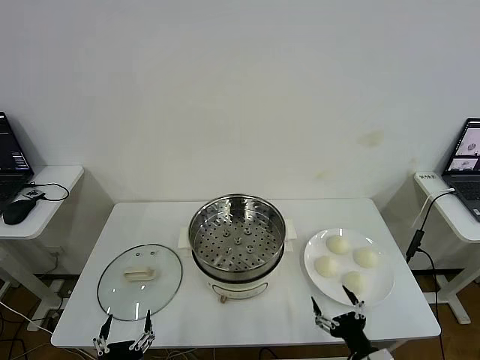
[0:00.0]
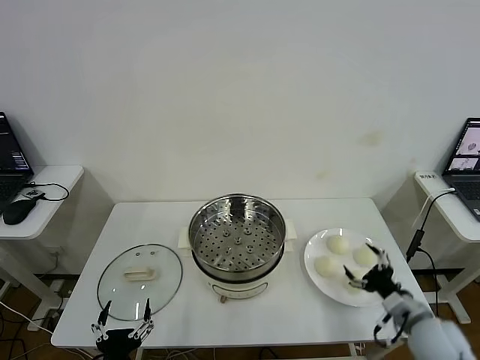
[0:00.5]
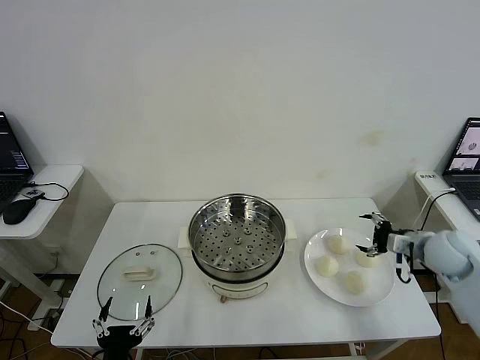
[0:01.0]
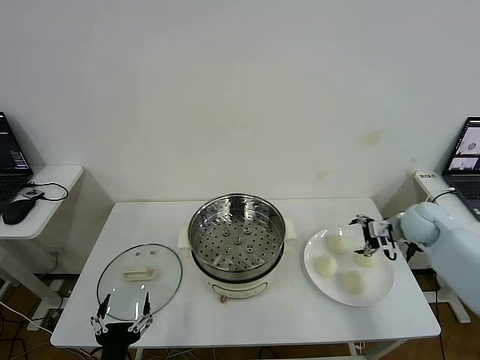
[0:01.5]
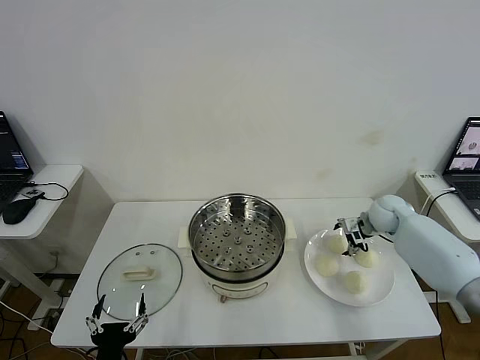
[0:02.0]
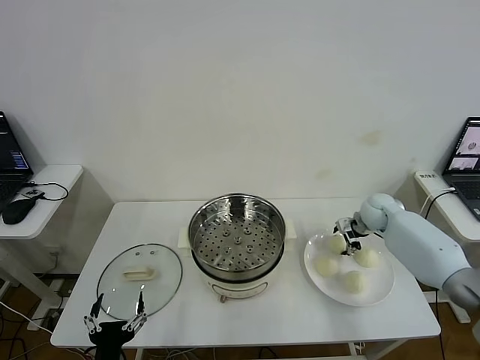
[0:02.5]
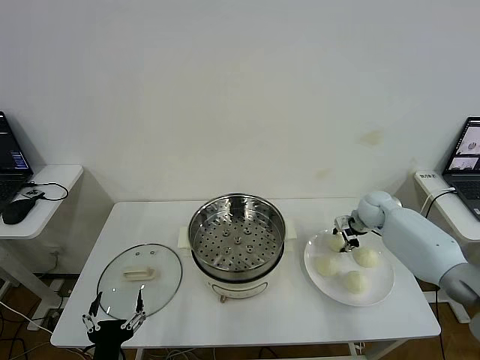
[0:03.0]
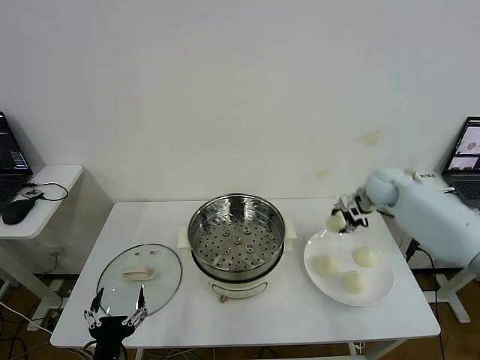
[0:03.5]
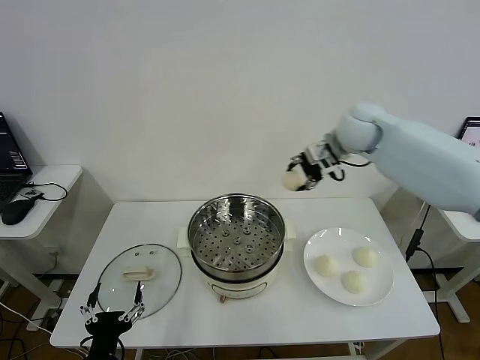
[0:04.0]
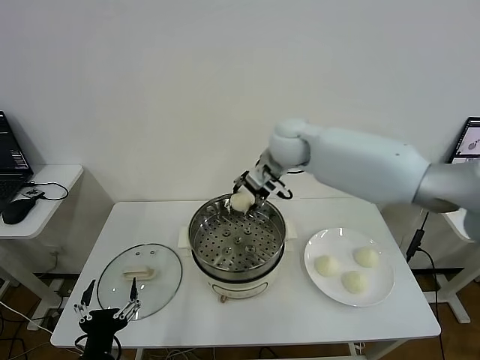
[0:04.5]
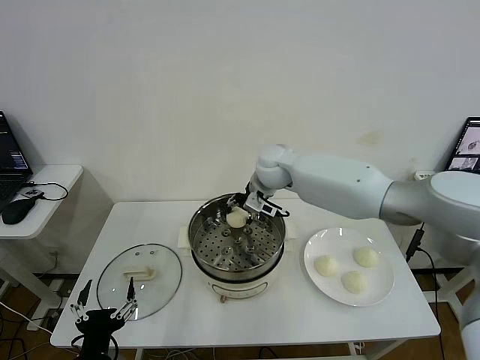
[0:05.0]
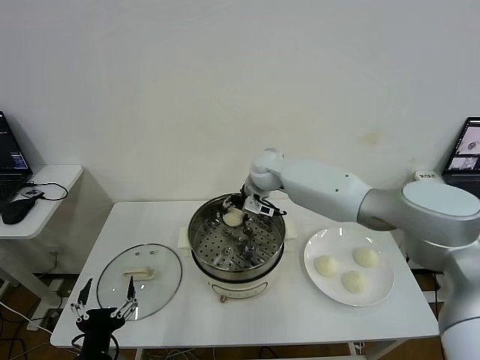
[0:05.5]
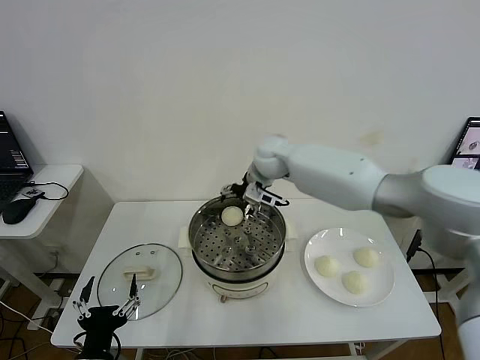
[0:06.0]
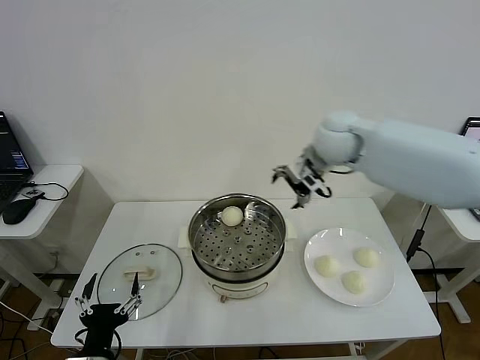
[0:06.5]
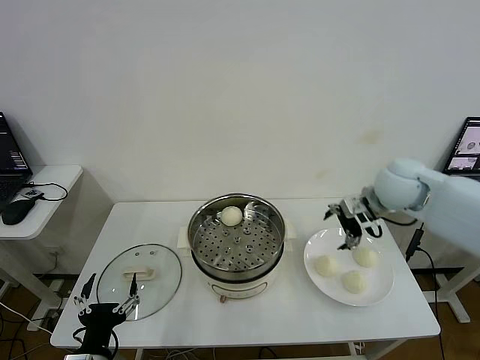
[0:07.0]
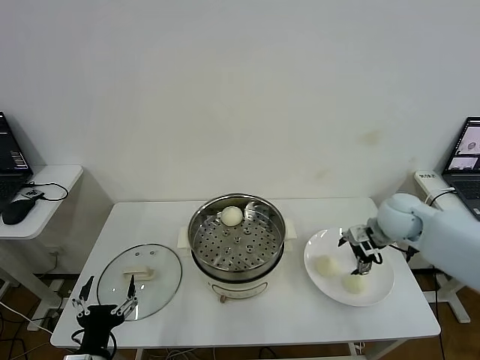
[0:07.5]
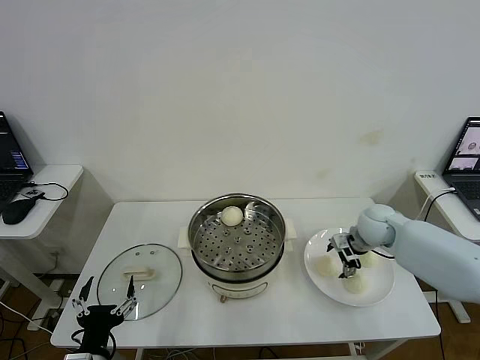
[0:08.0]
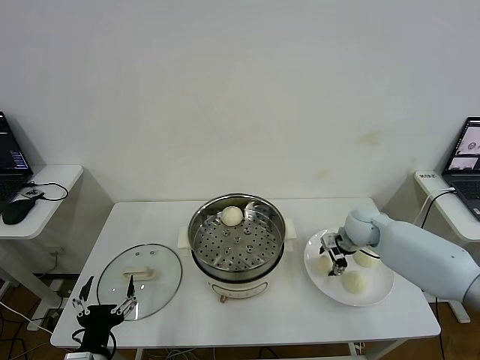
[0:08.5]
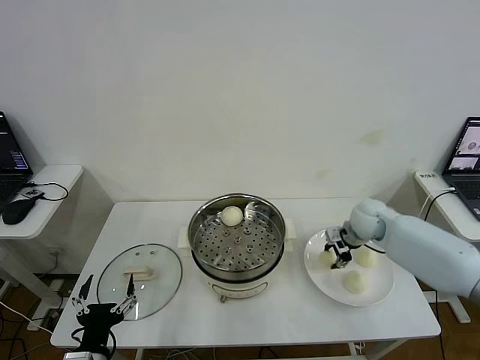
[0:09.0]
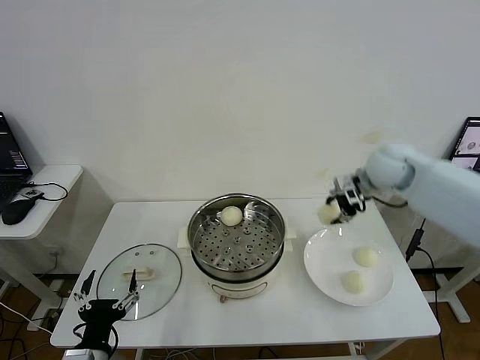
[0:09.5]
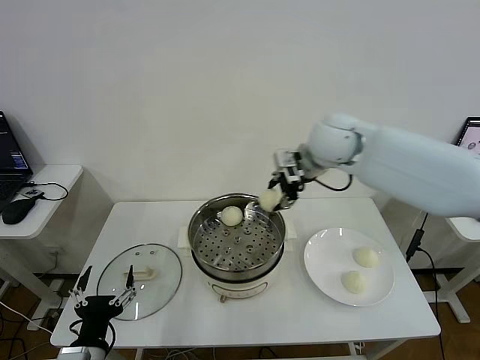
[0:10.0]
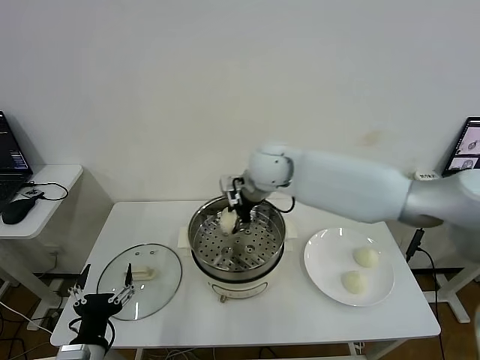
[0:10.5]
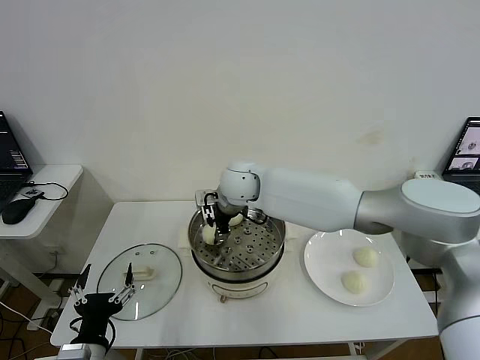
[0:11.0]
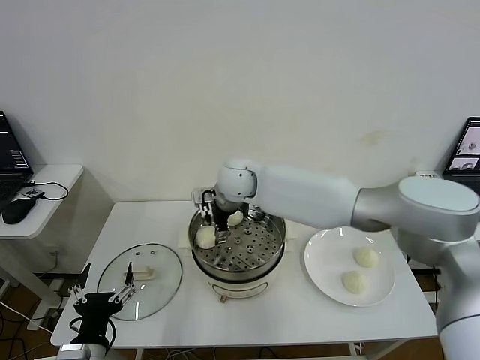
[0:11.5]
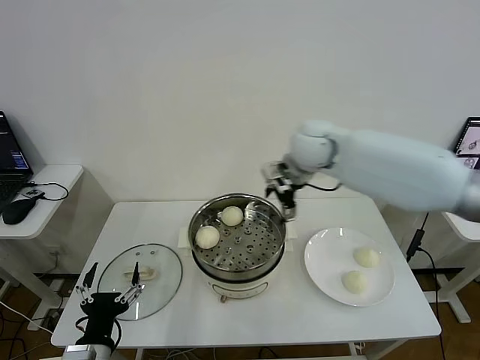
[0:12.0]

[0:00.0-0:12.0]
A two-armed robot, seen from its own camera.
Step, 0:00.0 to 0:02.5: Grasp the baozi in the plate with right gripper.
Step, 0:03.0 to 0:05.5: Place the baozi on the steamer with right gripper.
Step, 0:06.5 to 0:08.5: Grasp the baozi in the plate with right gripper.
Step, 0:09.0 to 0:11.0: Place the baozi on the steamer with right gripper.
0:02.0 to 0:04.0: The right gripper goes about 30 cm upward and to the left, and closes up.
0:04.0 to 0:06.0: The right gripper travels to the left and downward by some 10 cm, and opens its fingers.
0:06.0 to 0:08.0: The right gripper moves to the right and downward, roughly 30 cm.
0:08.0 to 0:10.0: The right gripper moves upward and to the left, about 30 cm, and closes its fingers.
0:10.0 to 0:12.0: The right gripper reaches roughly 15 cm to the left, then returns, and opens up.

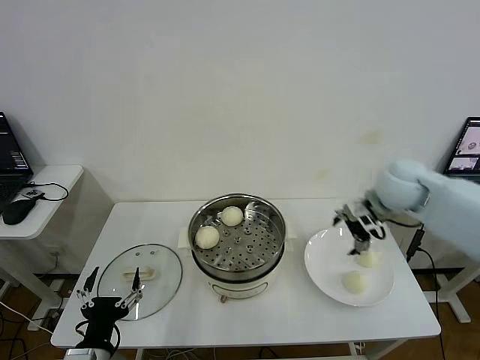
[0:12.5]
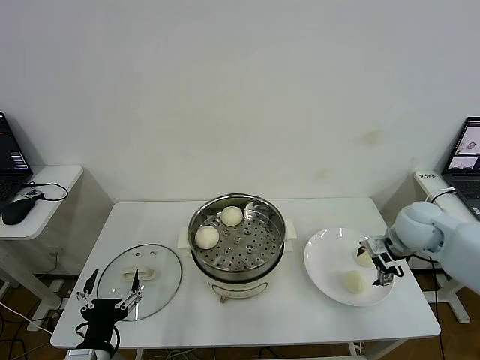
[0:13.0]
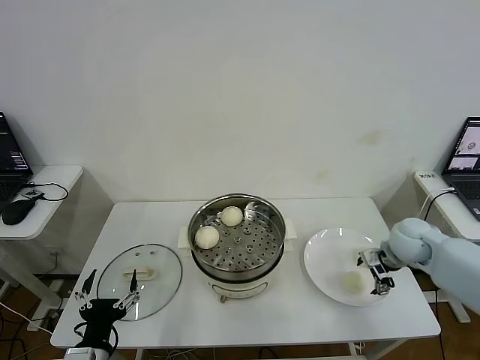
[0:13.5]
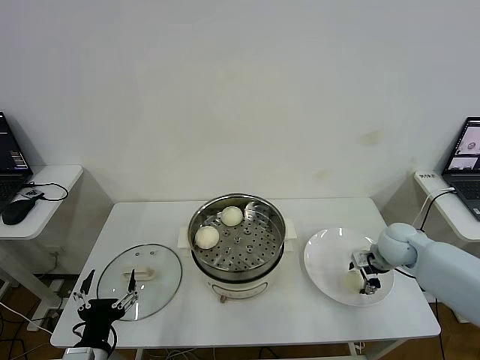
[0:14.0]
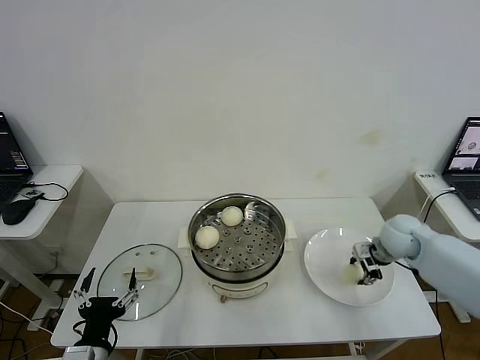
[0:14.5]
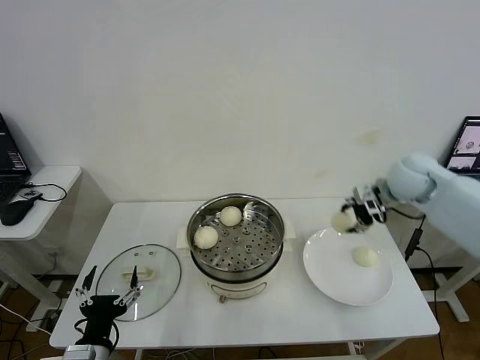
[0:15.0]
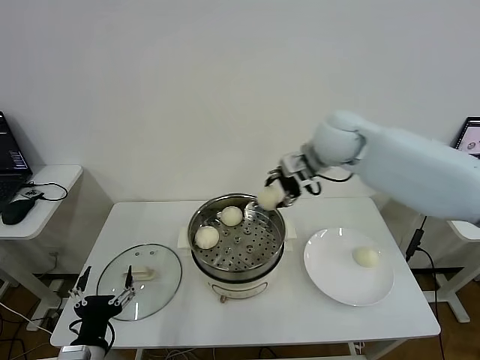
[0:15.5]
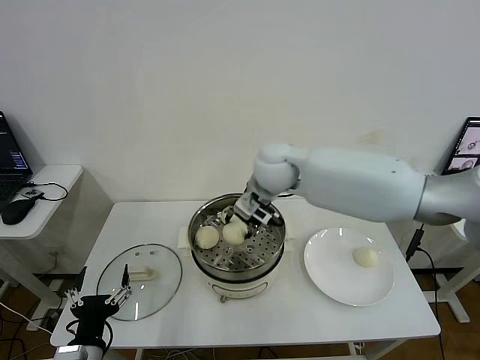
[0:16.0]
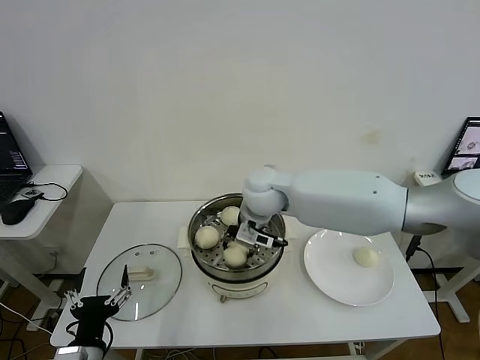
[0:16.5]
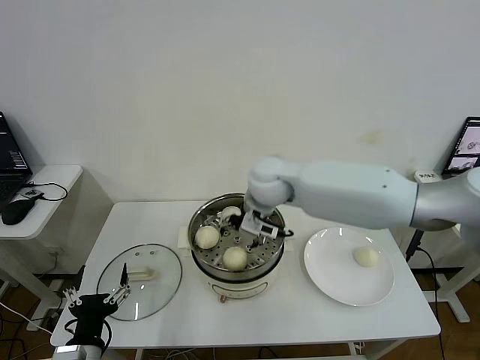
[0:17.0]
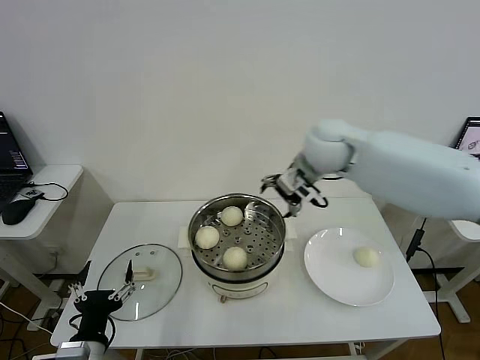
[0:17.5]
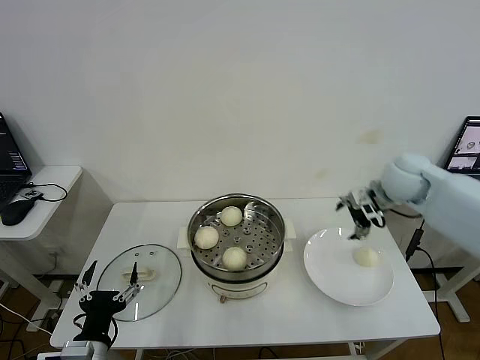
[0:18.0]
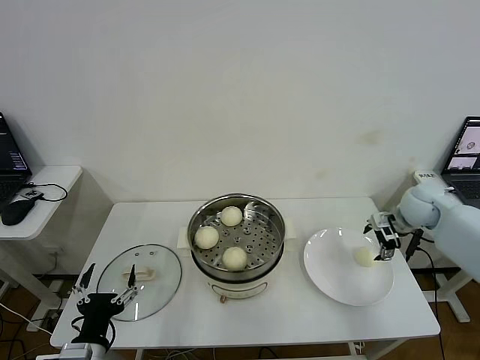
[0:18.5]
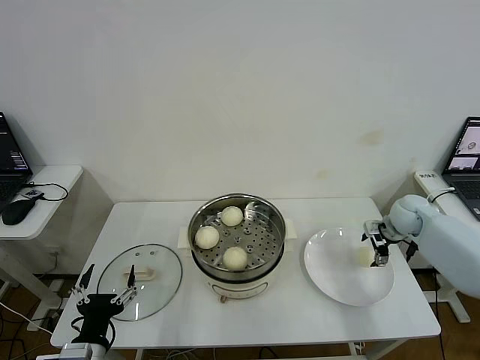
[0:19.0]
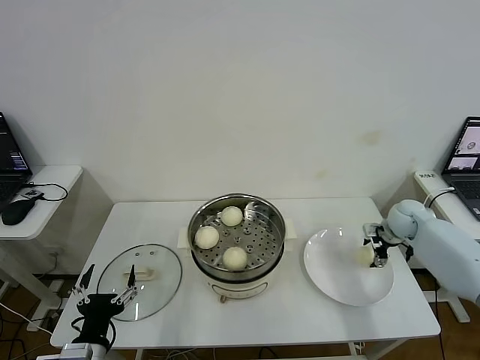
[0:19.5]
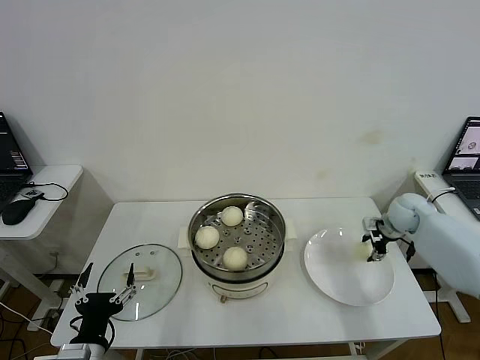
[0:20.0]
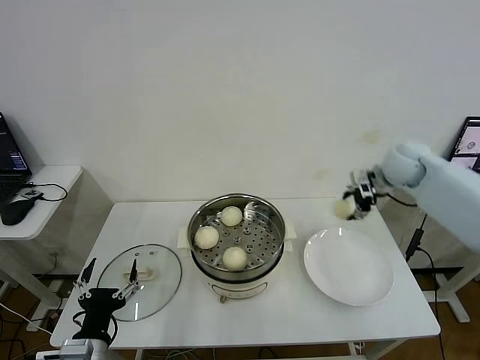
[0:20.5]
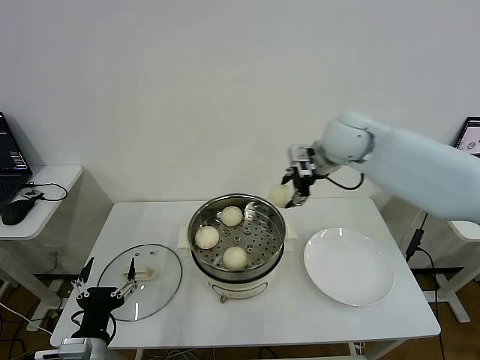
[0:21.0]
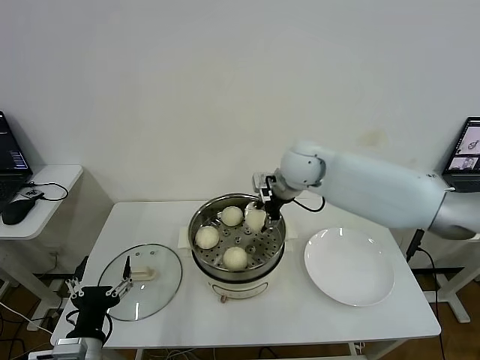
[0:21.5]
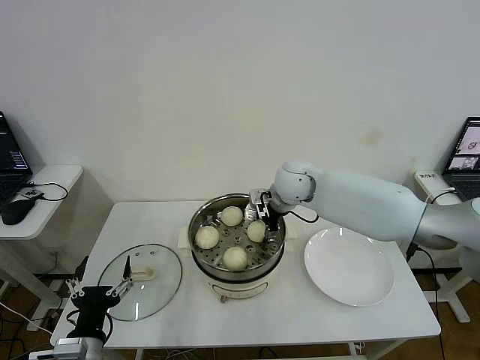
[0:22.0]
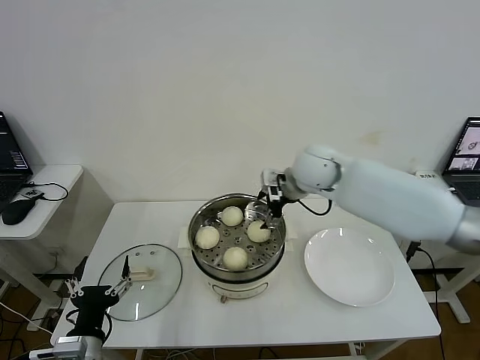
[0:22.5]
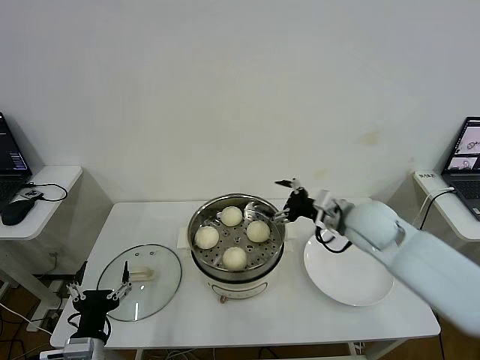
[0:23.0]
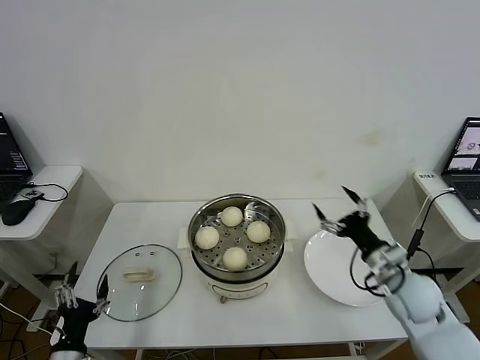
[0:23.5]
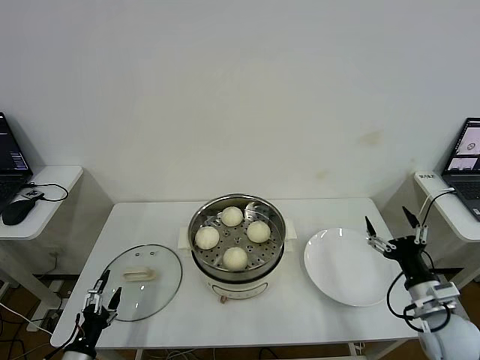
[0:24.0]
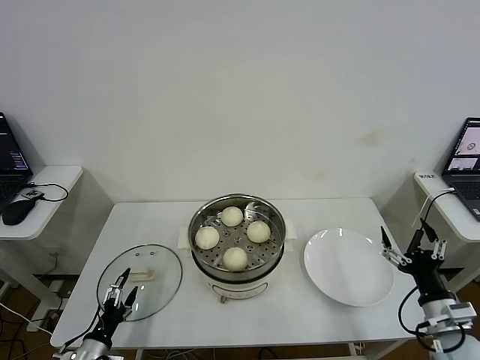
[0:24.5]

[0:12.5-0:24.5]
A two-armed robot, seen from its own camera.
Step, 0:12.5 to 0:14.0: Grasp the baozi in the plate with right gripper.
Step, 0:14.5 to 0:16.5: Place the baozi on the steamer with right gripper.
Step, 0:17.0 to 0:19.5: Grasp the baozi in the plate with right gripper.
Step, 0:20.0 to 0:22.0: Place the baozi on the steamer with right gripper.
0:12.5 to 0:14.5: The right gripper moves downward, approximately 10 cm, and closes up.
0:14.5 to 0:16.5: The right gripper goes about 35 cm to the left.
0:16.5 to 0:18.5: The right gripper is displaced to the right by some 40 cm, and opens its fingers.
0:18.5 to 0:20.5: The right gripper moves upward and to the left, about 10 cm, and closes its fingers.
0:20.5 to 0:22.5: The right gripper shifts about 20 cm to the left, and opens its fingers.
0:22.5 to 0:24.5: The left gripper moves downward and to the left, about 15 cm, while the right gripper moves backward, to the right and downward, about 40 cm.

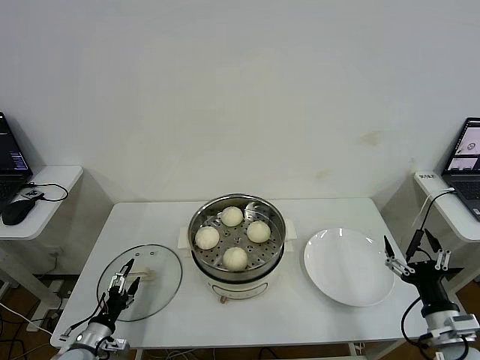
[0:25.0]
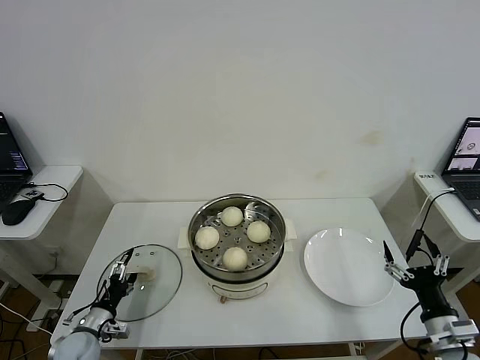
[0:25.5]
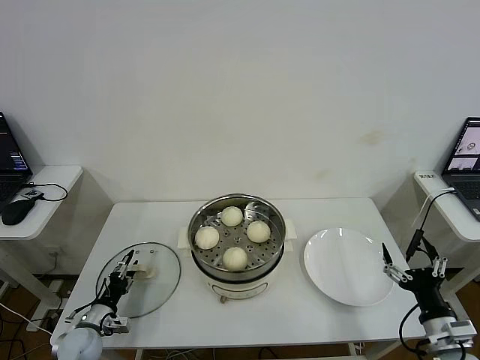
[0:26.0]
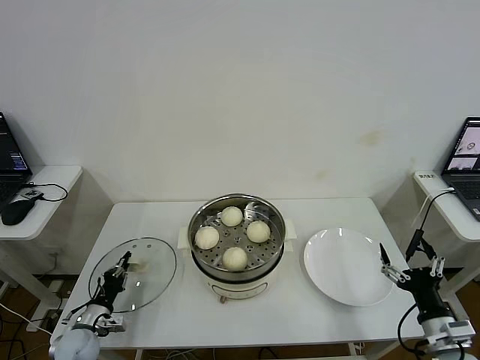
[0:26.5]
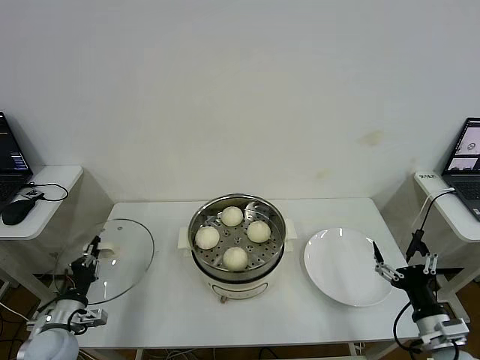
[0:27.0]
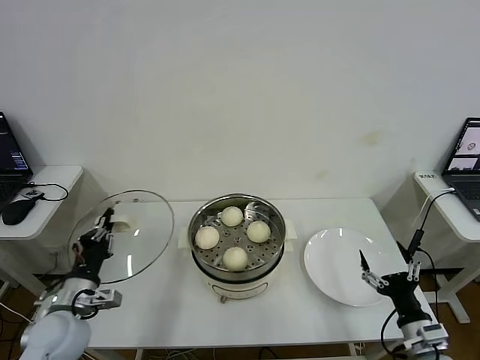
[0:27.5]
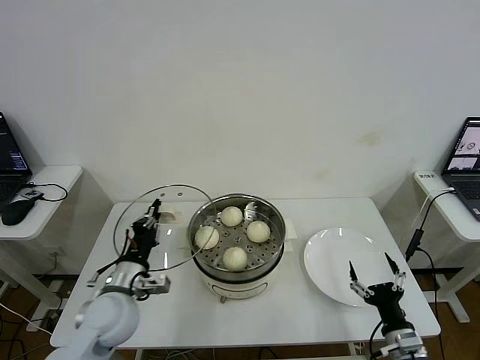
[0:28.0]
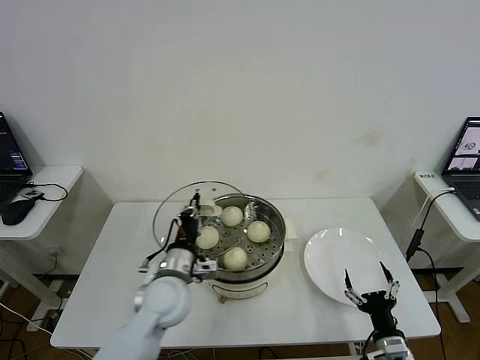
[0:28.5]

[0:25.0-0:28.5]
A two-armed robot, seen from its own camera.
0:25.0 to 0:27.0: The left gripper travels upward by approximately 5 cm, and closes.
0:27.0 to 0:28.5: The right gripper is displaced downward and to the left by about 10 cm. The left gripper moves to the right and upward, some 25 cm.
